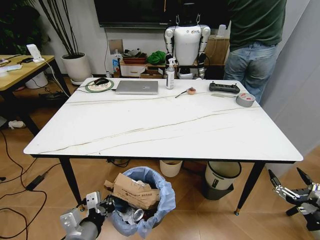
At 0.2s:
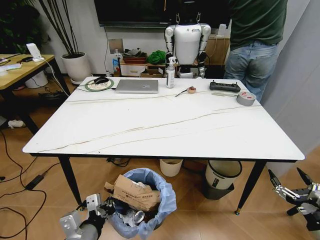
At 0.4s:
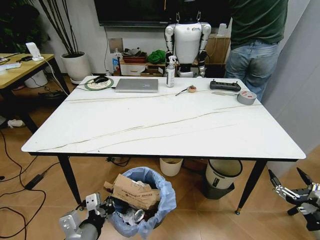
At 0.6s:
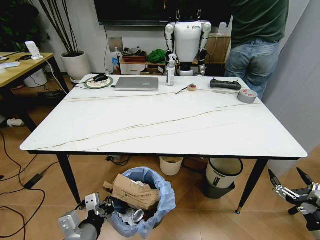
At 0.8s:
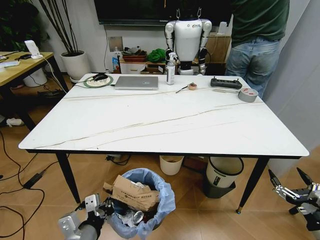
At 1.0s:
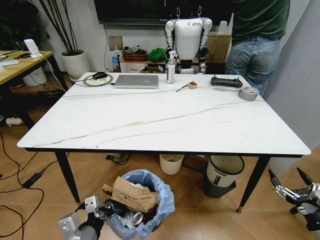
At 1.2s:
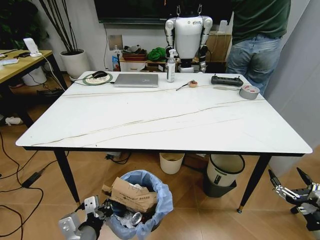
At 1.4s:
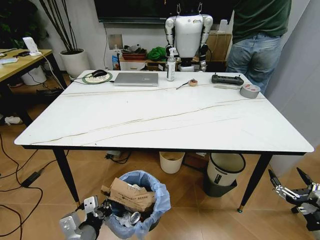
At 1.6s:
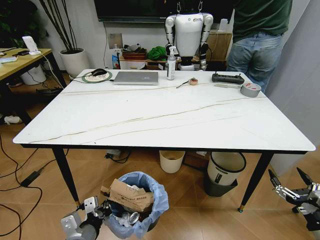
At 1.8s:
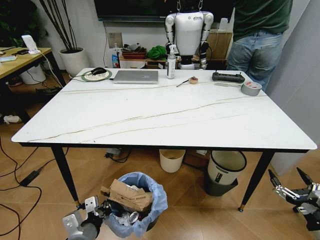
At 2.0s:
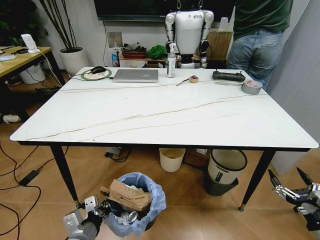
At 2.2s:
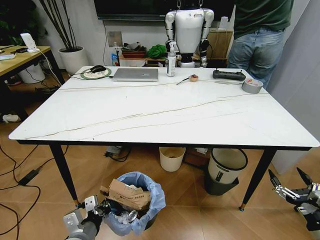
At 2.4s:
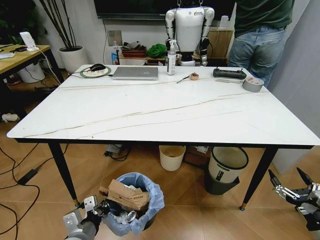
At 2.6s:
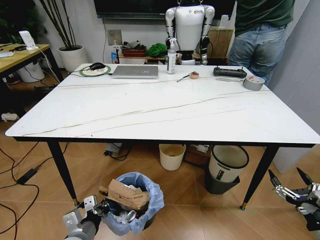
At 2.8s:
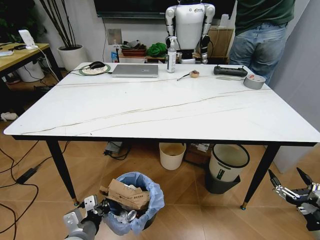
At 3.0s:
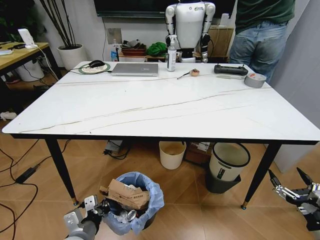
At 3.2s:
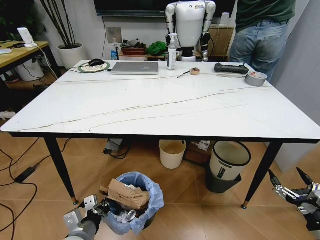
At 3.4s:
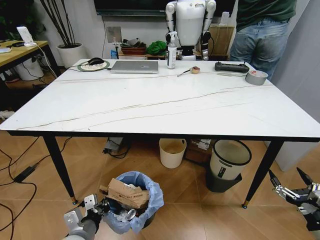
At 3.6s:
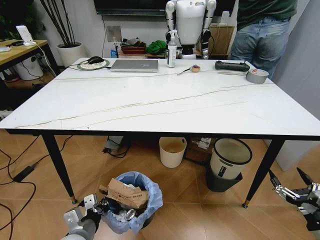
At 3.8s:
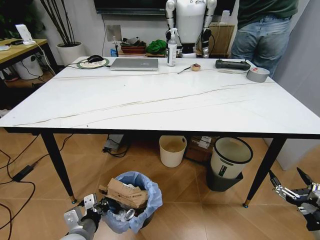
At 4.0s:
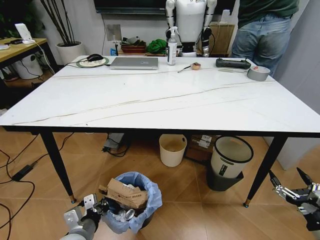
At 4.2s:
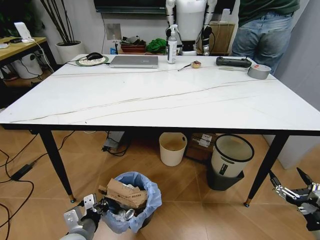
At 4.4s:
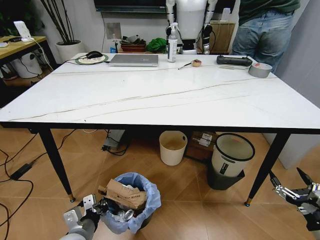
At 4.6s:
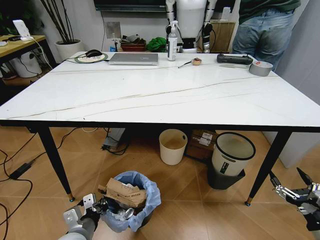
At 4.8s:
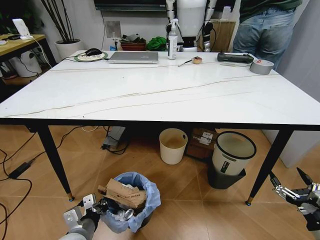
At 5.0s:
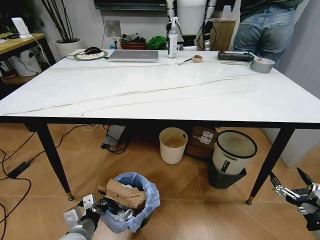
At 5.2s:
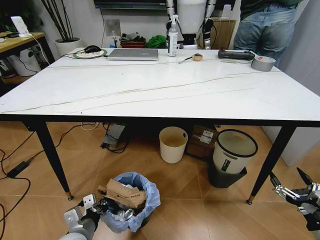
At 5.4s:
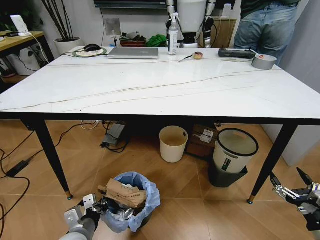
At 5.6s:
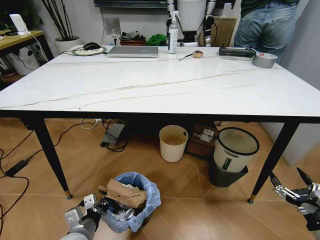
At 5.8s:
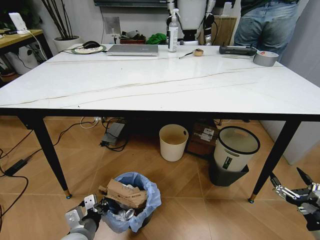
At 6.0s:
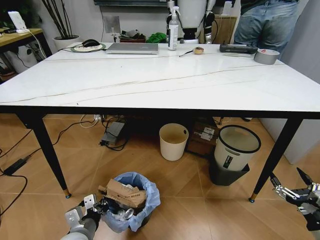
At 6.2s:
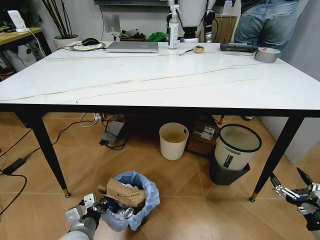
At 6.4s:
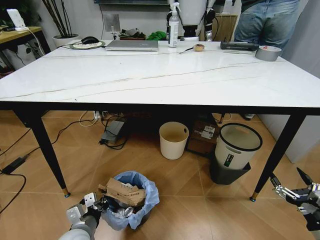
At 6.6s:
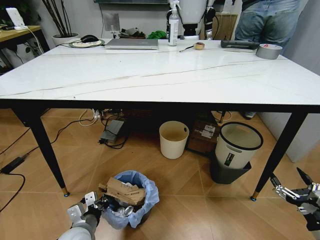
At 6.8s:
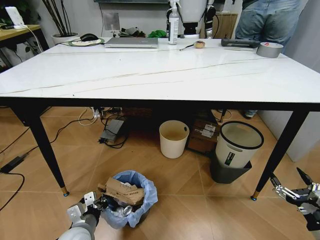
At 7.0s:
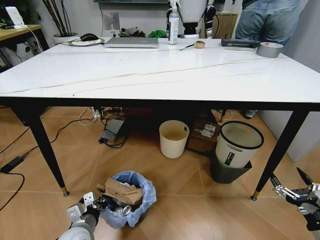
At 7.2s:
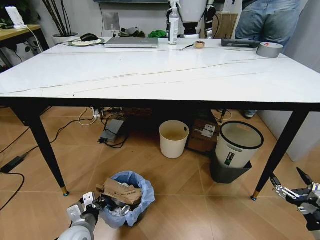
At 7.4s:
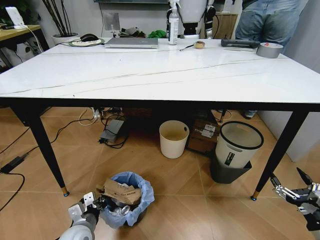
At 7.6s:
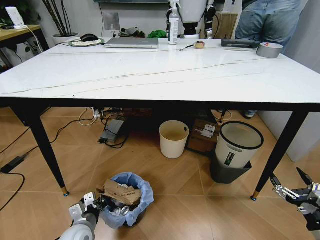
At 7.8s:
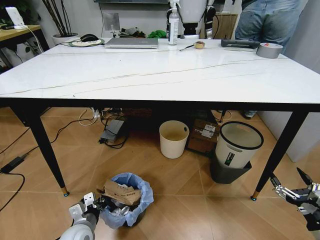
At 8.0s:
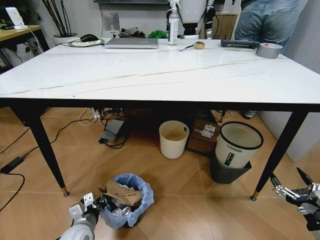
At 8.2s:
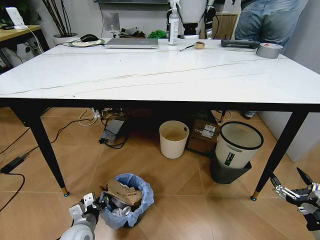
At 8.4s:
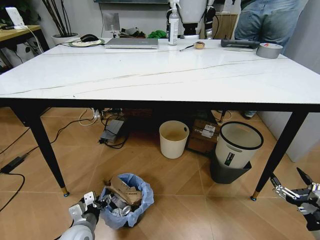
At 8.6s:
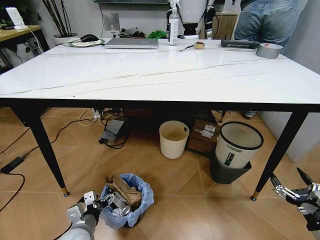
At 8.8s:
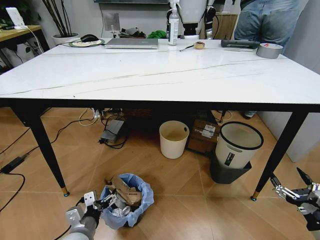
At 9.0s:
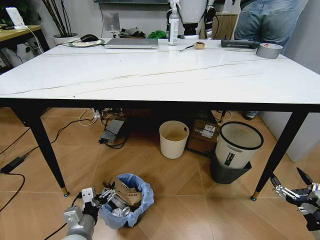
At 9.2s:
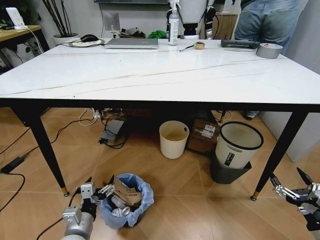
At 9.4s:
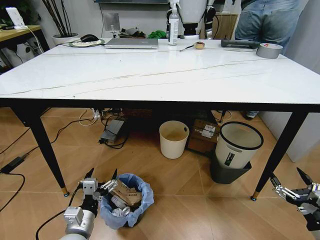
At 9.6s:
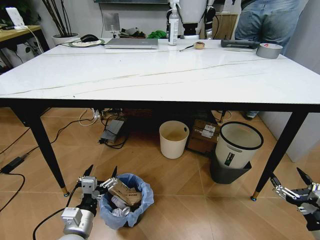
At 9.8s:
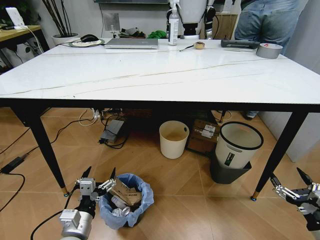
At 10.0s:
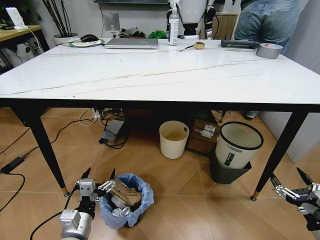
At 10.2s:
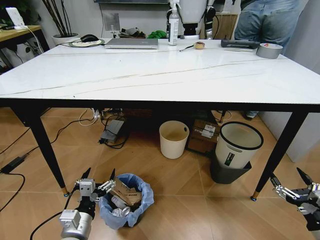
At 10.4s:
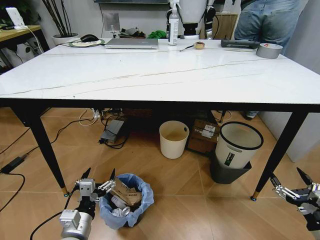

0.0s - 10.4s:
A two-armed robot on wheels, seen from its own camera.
Task of the whole recording: Pick up the trash bin and place the trash from the table into it.
1.4s - 3.0s: The left gripper moves approximately 5 cm.
7.4s - 9.0s: The left gripper ends up roughly 5 cm from where it was, and opens its fingers.
